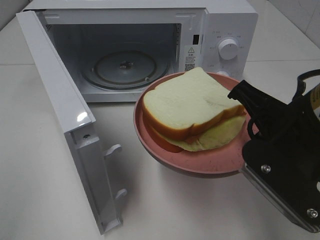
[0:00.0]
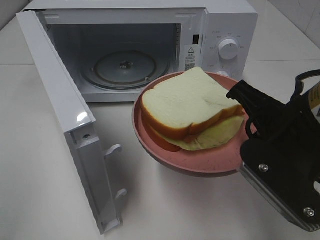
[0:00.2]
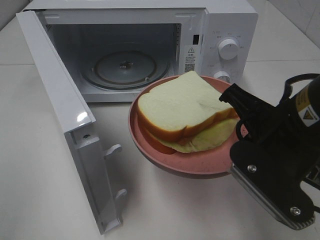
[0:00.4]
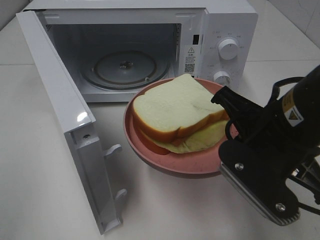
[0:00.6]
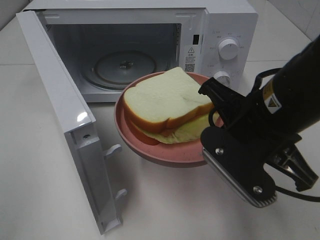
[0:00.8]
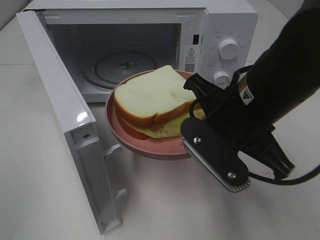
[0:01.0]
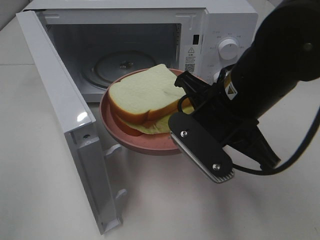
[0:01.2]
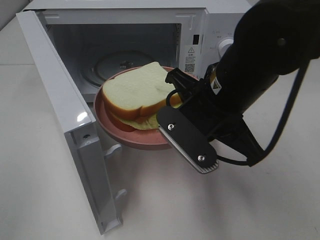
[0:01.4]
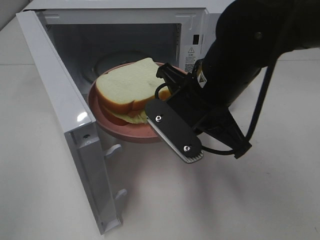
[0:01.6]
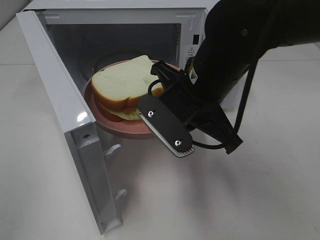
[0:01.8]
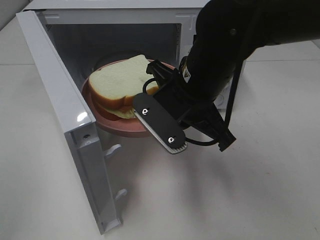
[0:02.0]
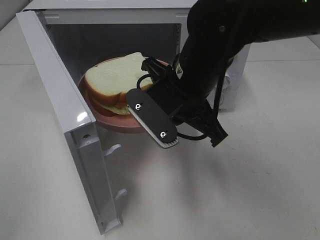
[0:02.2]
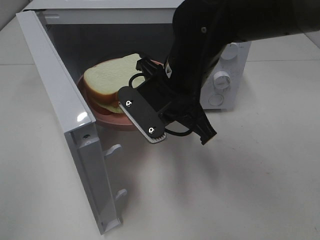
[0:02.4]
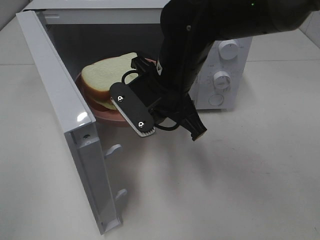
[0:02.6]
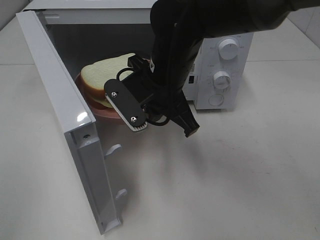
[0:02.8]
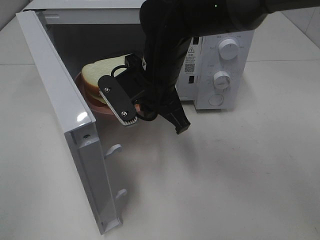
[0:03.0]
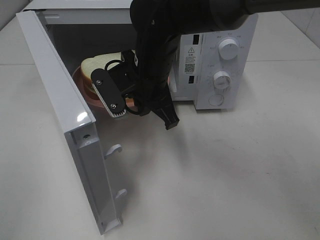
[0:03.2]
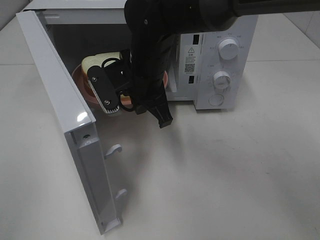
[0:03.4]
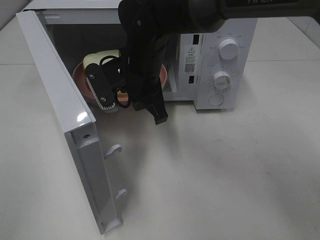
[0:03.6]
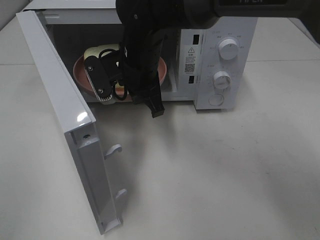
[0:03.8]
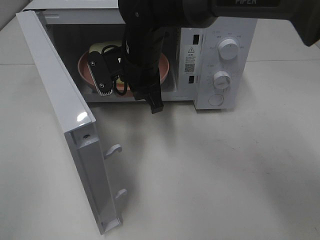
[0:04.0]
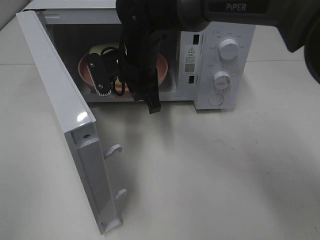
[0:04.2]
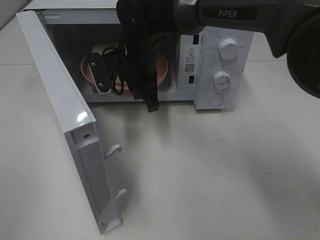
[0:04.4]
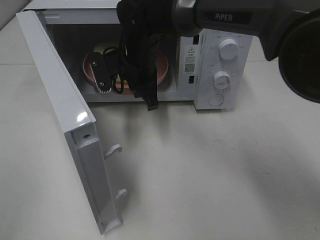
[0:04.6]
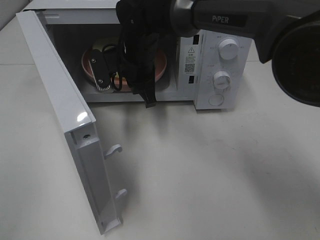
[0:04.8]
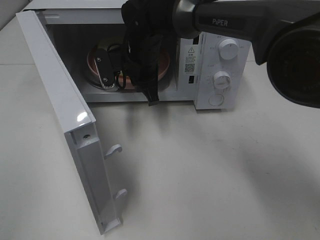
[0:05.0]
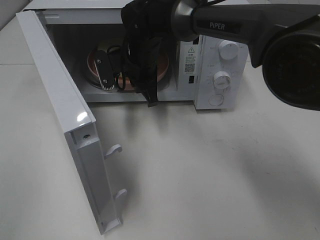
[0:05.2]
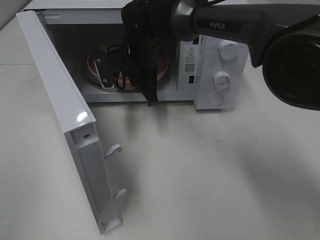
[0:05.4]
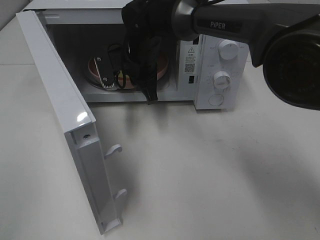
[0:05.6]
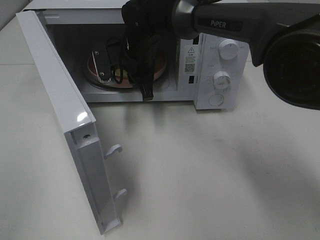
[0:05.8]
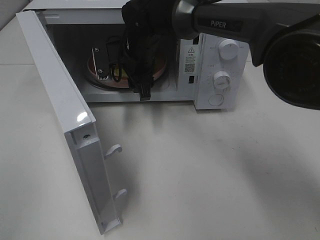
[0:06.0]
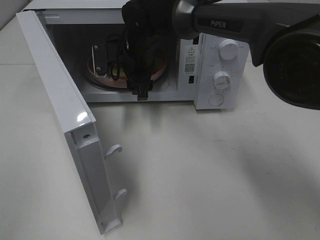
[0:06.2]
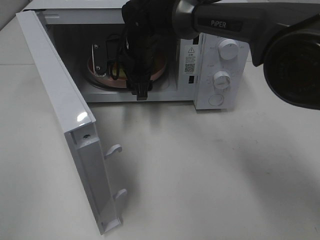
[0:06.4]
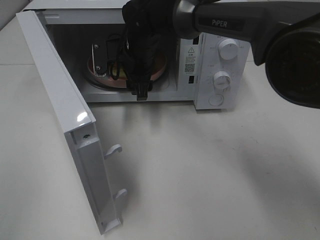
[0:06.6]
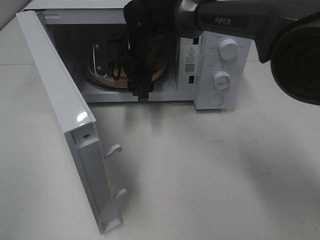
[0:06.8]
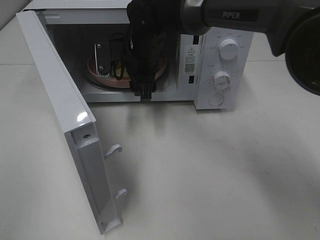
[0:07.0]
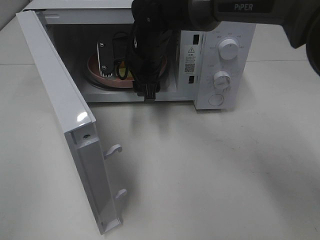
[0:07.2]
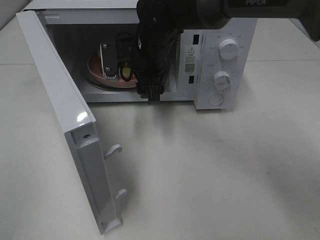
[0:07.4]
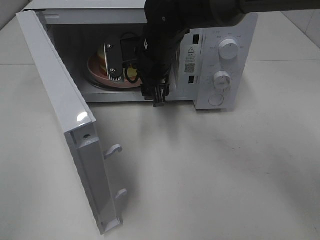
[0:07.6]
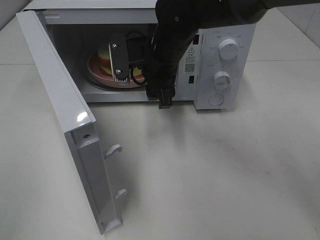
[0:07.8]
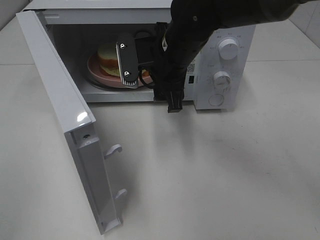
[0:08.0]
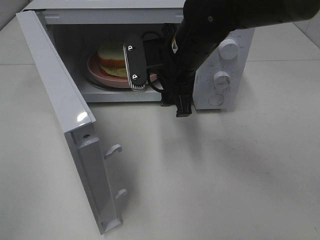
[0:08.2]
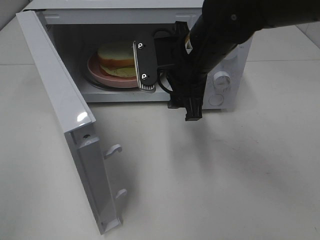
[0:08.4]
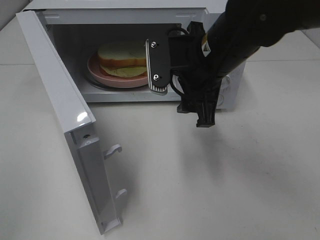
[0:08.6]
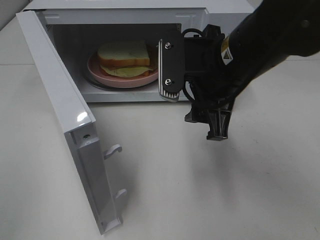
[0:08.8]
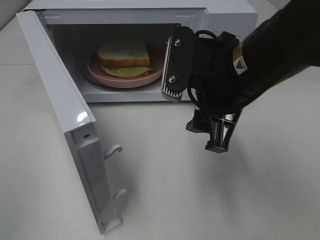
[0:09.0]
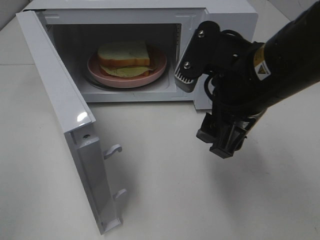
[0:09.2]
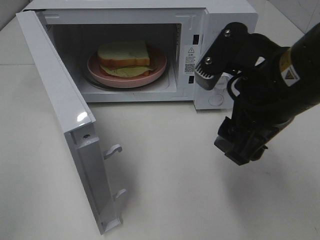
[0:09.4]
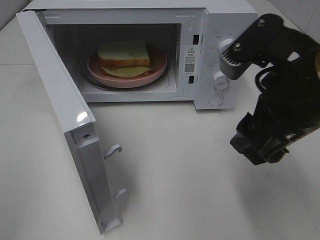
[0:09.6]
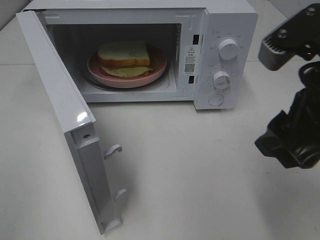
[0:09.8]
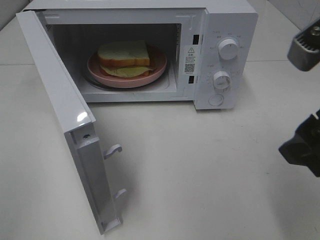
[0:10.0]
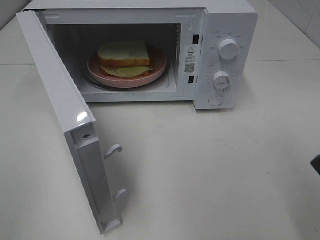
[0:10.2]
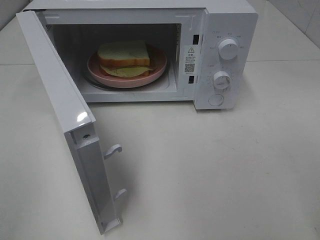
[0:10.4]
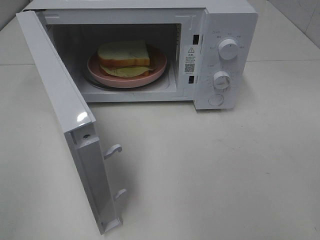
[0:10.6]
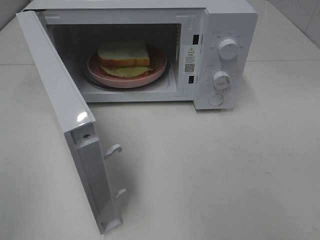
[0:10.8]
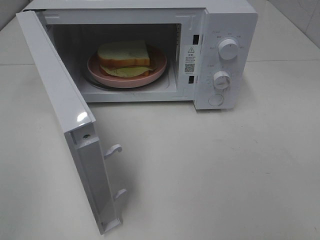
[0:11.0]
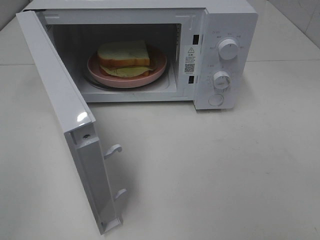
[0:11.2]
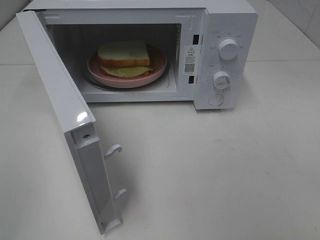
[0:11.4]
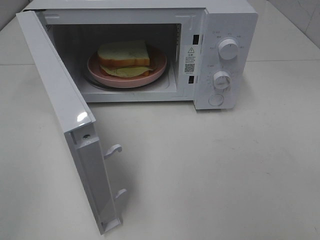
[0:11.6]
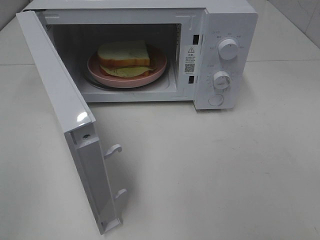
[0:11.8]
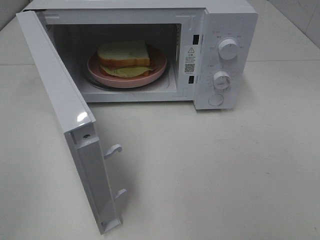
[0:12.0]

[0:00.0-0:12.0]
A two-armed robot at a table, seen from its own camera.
Task of the whole recording: Heat Sandwich.
Step, 0:00.0 to 0:07.2: Right hand: place the plate in the microwave.
0:00.0 to 0:01.6: The right gripper moves to the left and forward, about 10 cm.
0:01.6 to 0:03.0: The right gripper travels forward and to the left by roughly 10 cm.
0:03.0 to 0:04.4: The right gripper goes some 10 cm forward.
0:04.4 to 0:06.0: The right gripper opens its fingers.
0:06.0 to 0:07.6: The right gripper shifts by some 5 cm.
0:07.6 to 0:09.0: The right gripper goes some 20 cm backward and to the right.
0:09.0 to 0:10.4: The right gripper goes some 20 cm to the right, backward and upward.

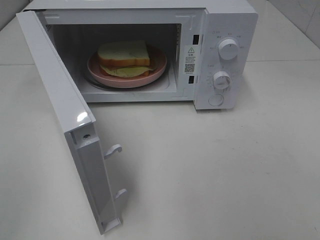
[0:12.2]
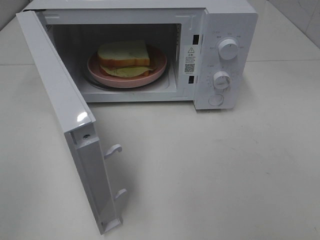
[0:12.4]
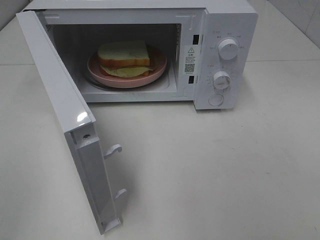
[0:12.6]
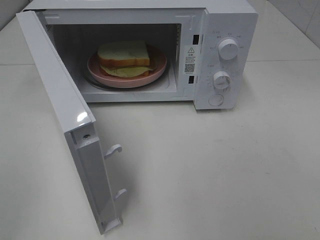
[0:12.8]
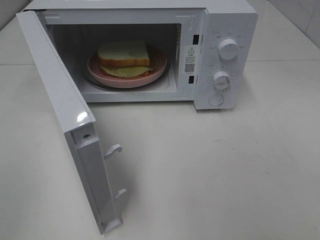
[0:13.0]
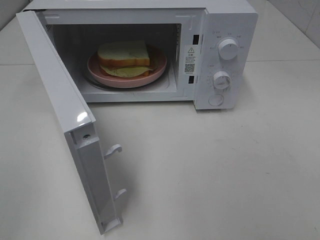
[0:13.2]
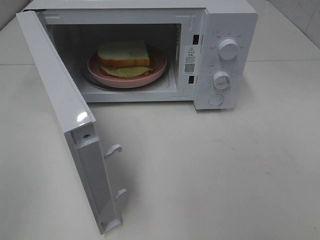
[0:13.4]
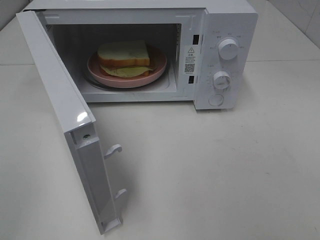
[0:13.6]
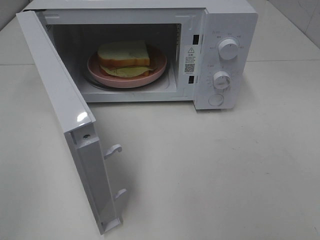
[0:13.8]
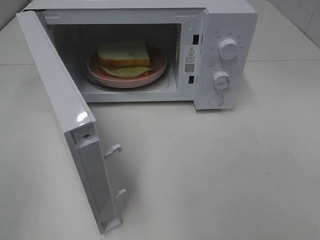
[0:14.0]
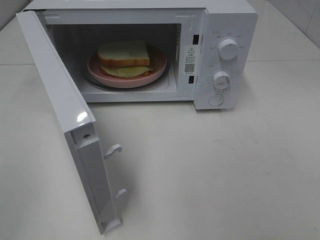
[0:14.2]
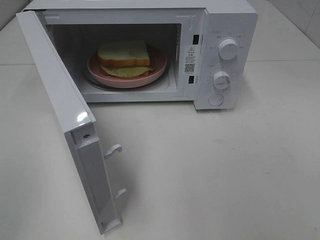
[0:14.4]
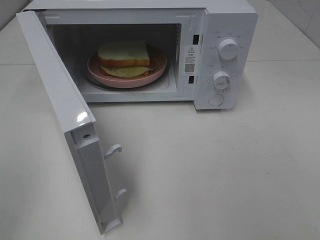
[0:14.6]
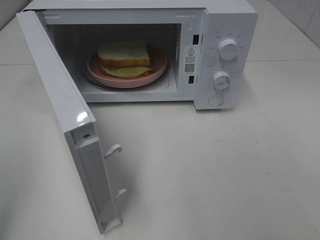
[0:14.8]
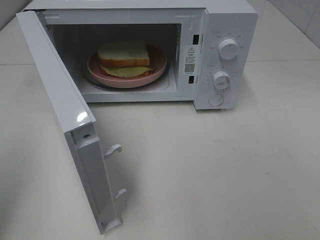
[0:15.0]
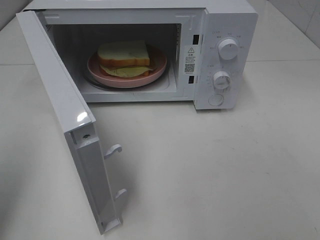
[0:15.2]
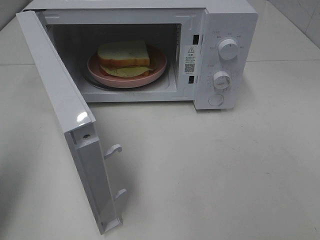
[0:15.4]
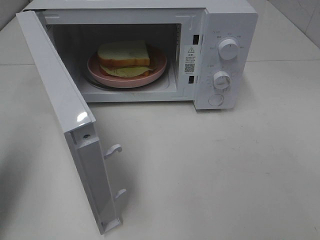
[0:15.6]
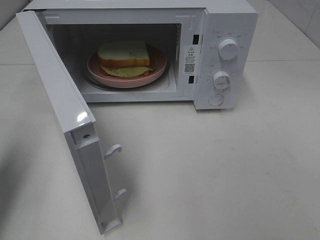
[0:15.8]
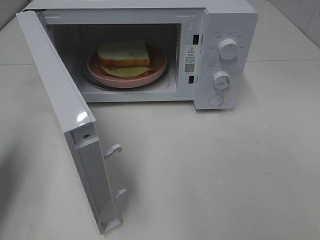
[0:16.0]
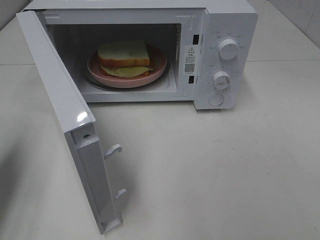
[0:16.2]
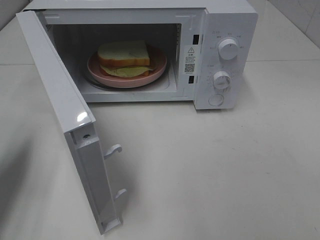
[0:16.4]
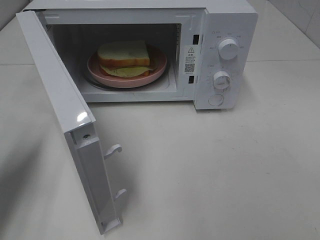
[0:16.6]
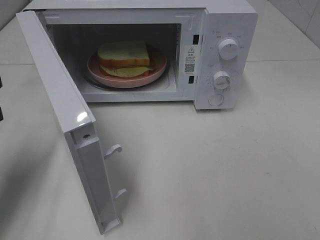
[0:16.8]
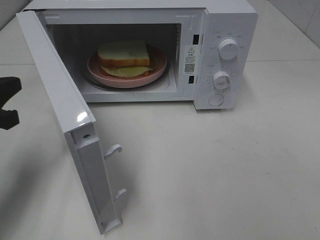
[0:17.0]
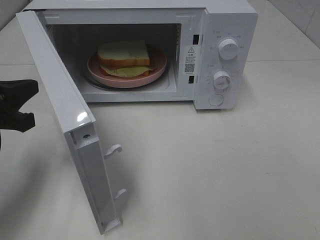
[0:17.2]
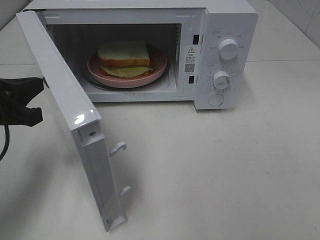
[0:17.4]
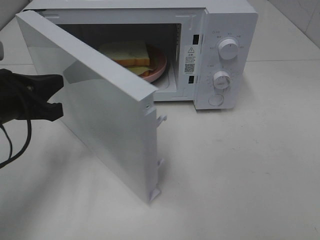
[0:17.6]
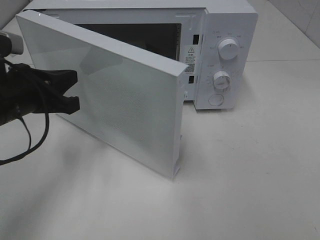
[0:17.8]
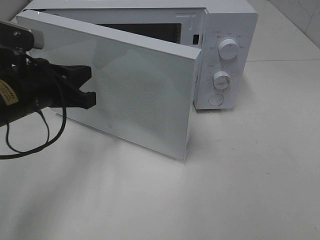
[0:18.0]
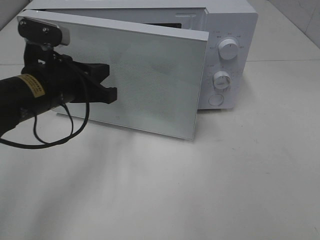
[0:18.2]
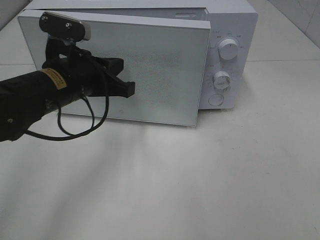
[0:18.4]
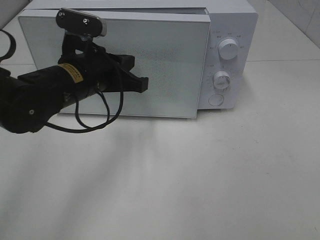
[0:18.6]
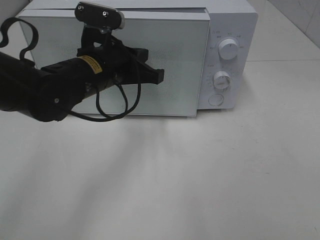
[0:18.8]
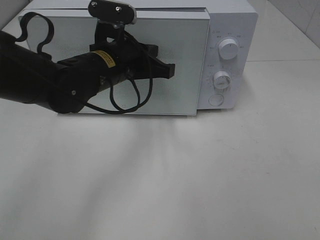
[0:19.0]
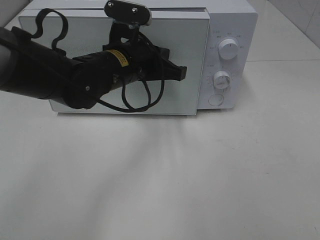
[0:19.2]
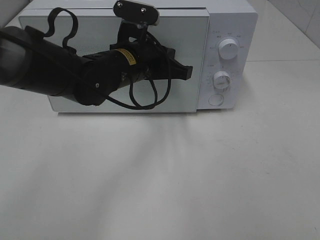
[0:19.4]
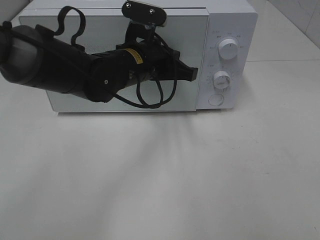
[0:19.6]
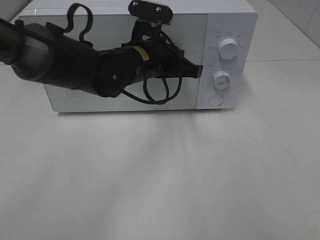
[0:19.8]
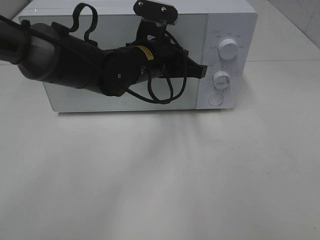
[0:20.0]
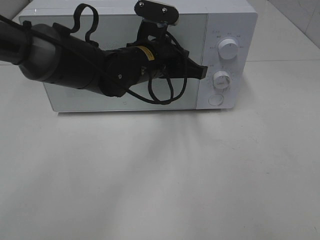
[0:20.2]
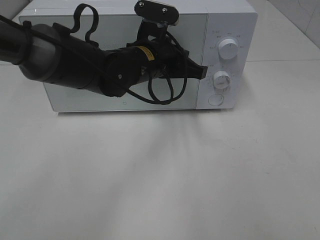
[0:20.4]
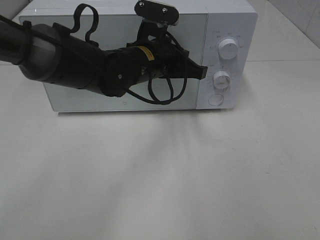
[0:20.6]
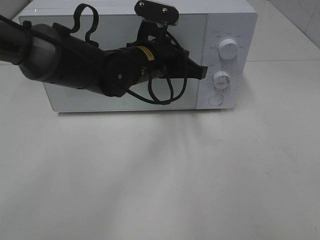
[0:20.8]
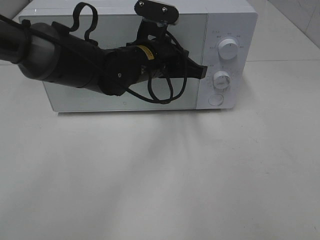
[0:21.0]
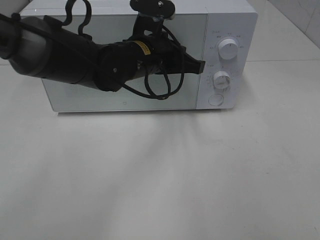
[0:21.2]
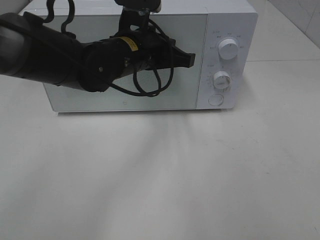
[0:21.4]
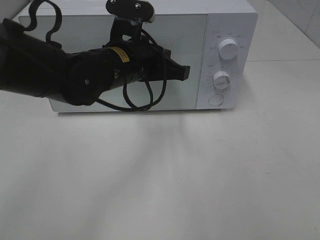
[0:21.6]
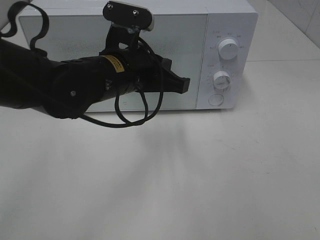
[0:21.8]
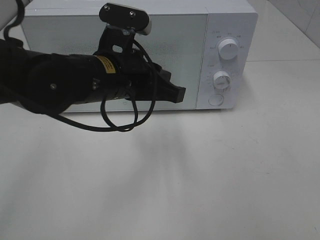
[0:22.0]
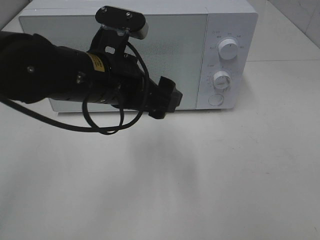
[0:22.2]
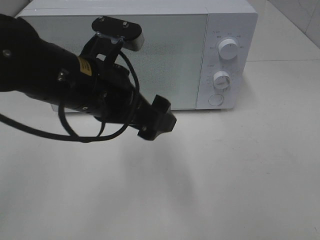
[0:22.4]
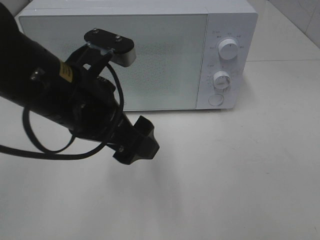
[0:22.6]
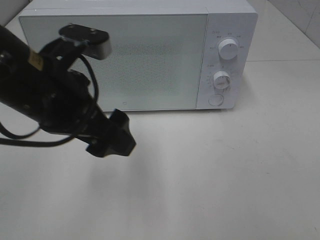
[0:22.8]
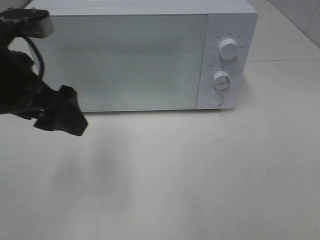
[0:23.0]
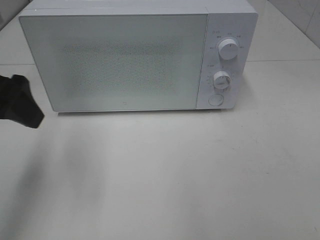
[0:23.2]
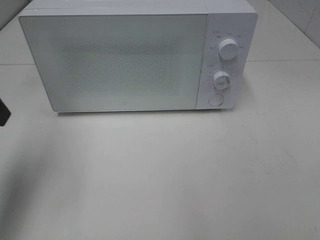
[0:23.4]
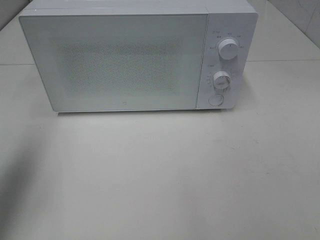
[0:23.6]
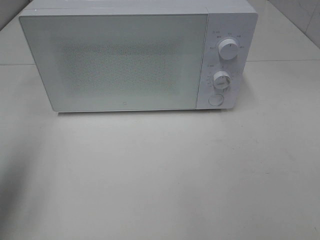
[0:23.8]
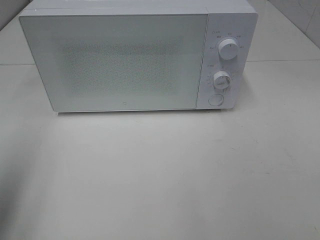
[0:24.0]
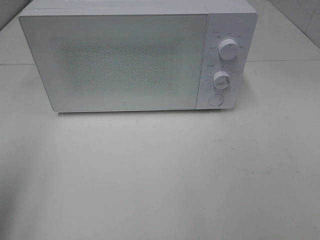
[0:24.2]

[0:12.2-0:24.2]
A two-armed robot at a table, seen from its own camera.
Task of the whole recording: Heat Sandwich.
Step, 0:12.2 to 0:22.0: Left hand: close the microwave door.
0:12.2 to 0:13.8: The two grippers keep their place.
0:13.8 to 0:15.2: The left gripper is displaced forward by approximately 10 cm, and closes its fingers.
0:15.2 to 0:16.6: The left gripper is displaced forward and downward by some 15 cm.
0:16.6 to 0:18.2: The left gripper heads to the right and forward, covering some 15 cm.
0:18.2 to 0:19.8: The left gripper is displaced to the right and forward by about 15 cm.
0:19.8 to 0:21.2: The two grippers keep their place.
0:21.2 to 0:22.6: The left gripper is displaced backward and to the left by roughly 15 cm, and opens its fingers.
0:22.6 to 0:24.2: The left gripper heads to the left and backward, covering approximately 25 cm.
